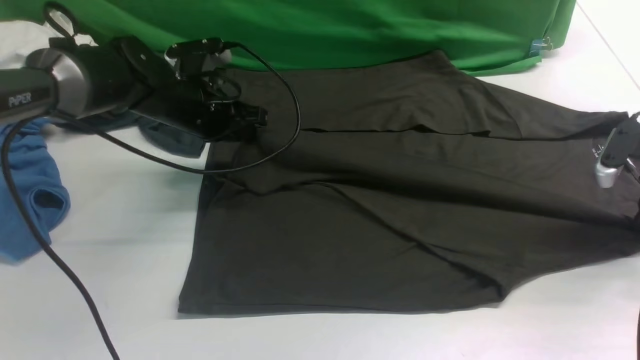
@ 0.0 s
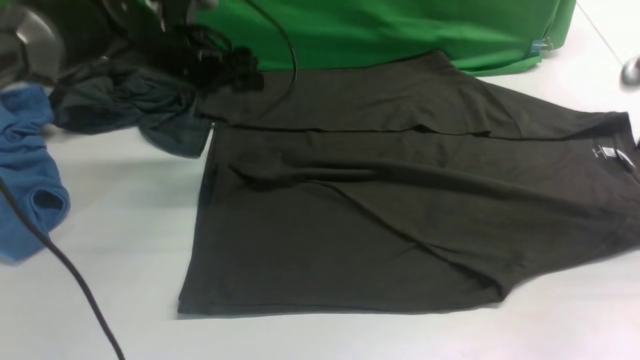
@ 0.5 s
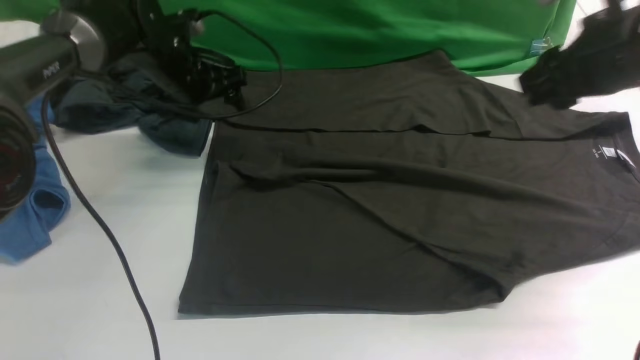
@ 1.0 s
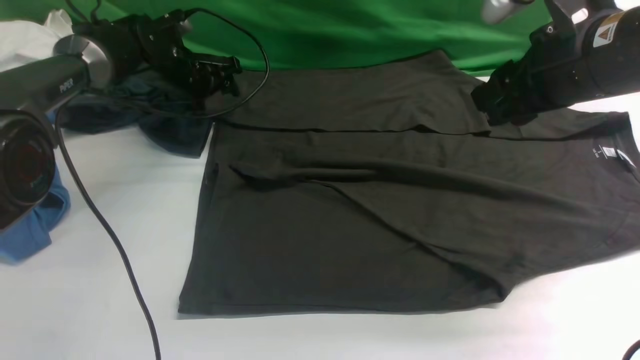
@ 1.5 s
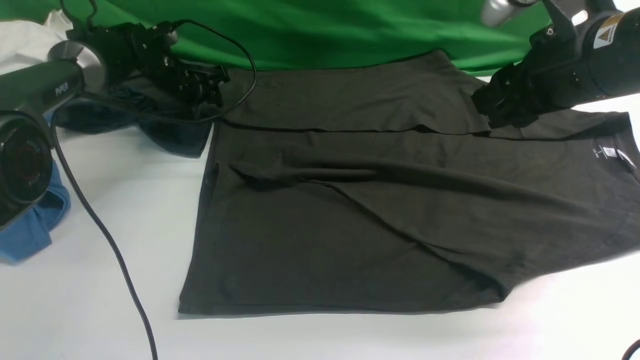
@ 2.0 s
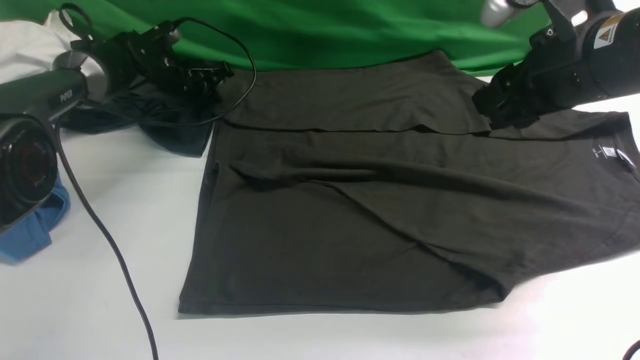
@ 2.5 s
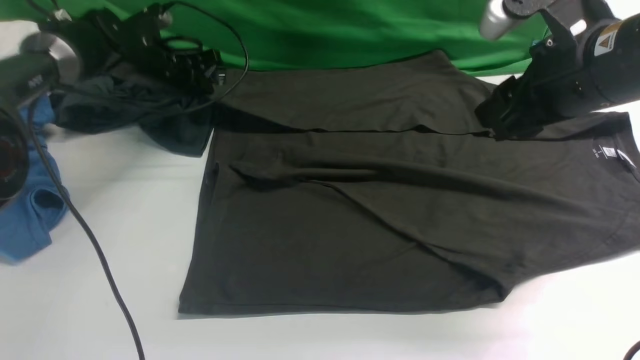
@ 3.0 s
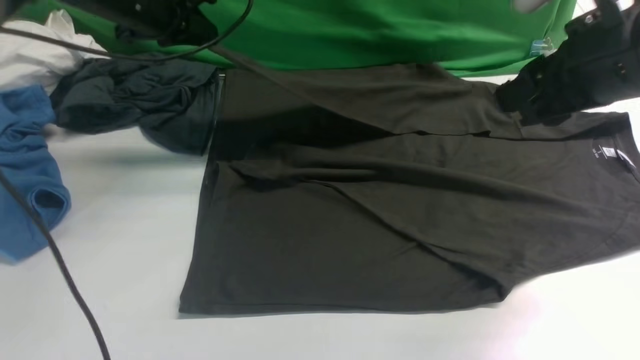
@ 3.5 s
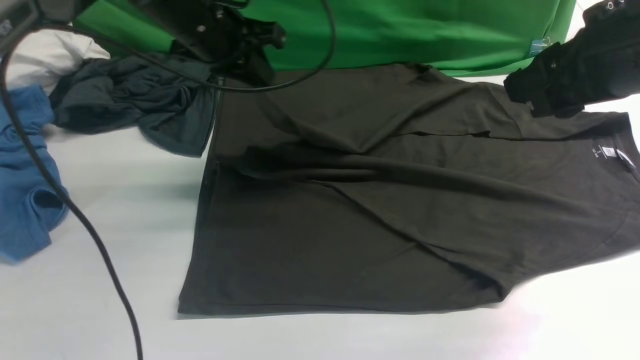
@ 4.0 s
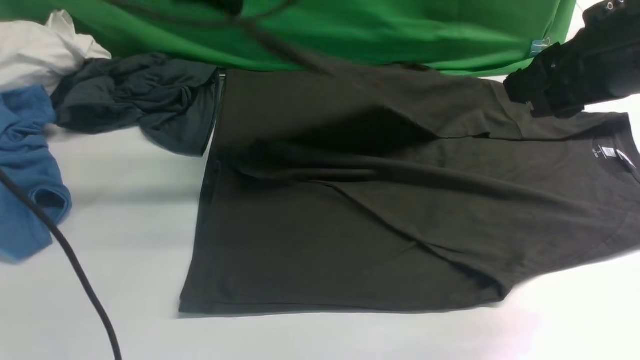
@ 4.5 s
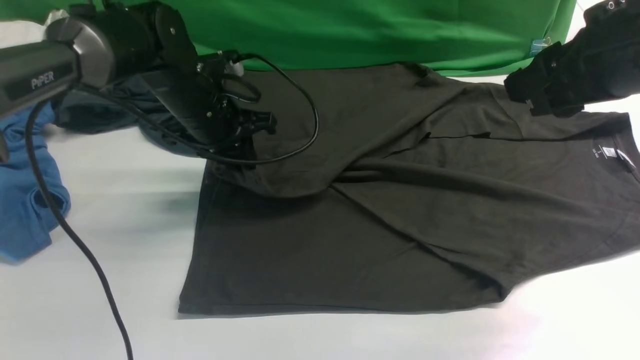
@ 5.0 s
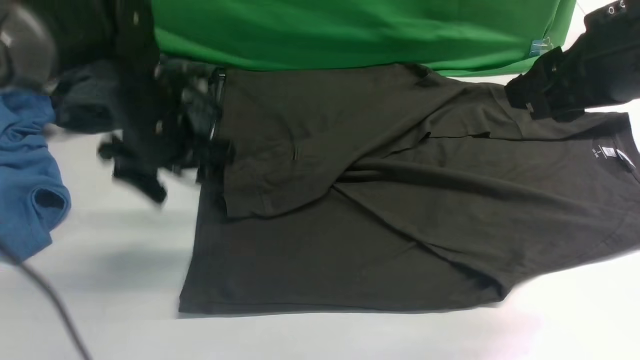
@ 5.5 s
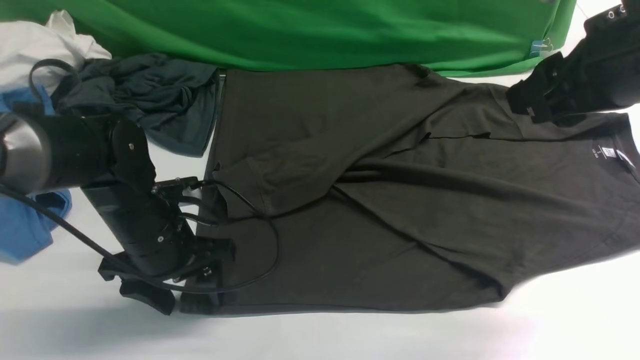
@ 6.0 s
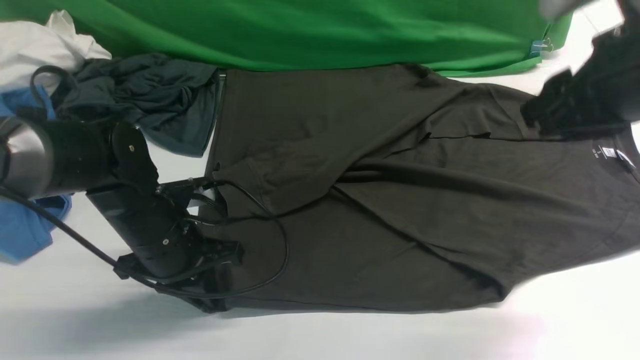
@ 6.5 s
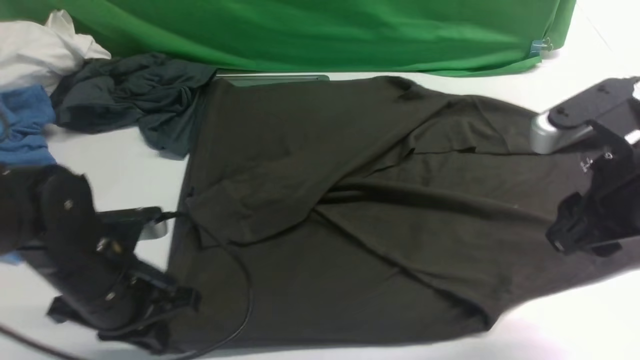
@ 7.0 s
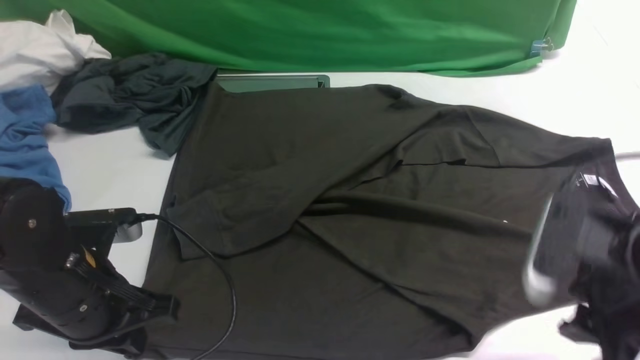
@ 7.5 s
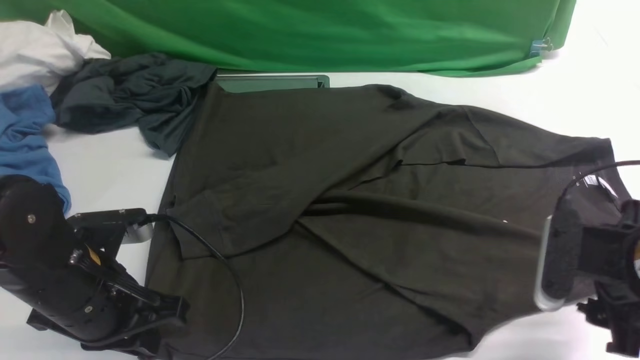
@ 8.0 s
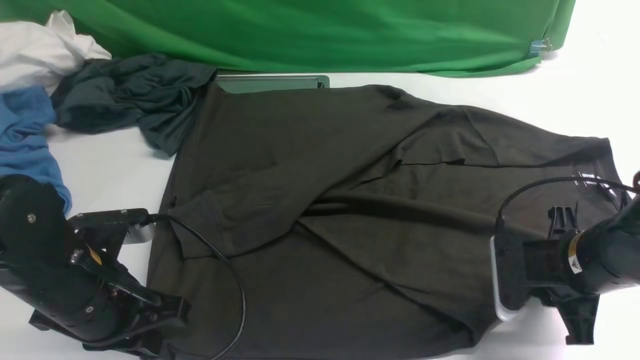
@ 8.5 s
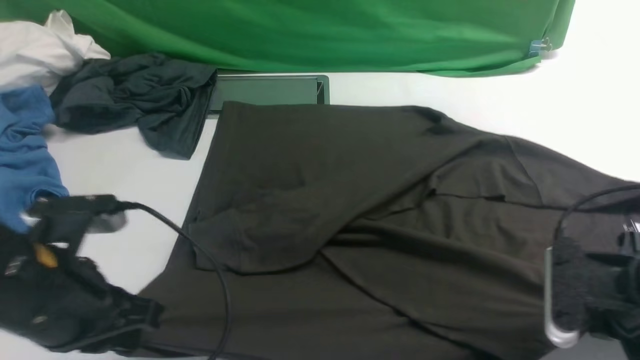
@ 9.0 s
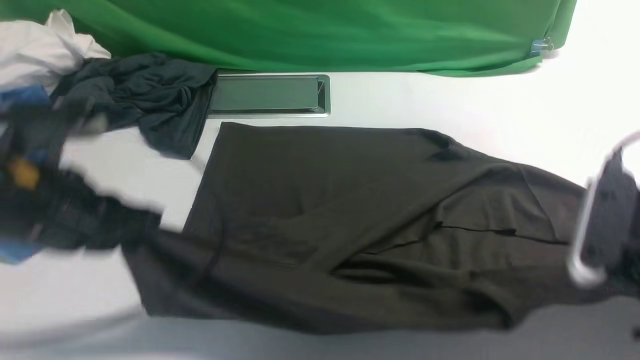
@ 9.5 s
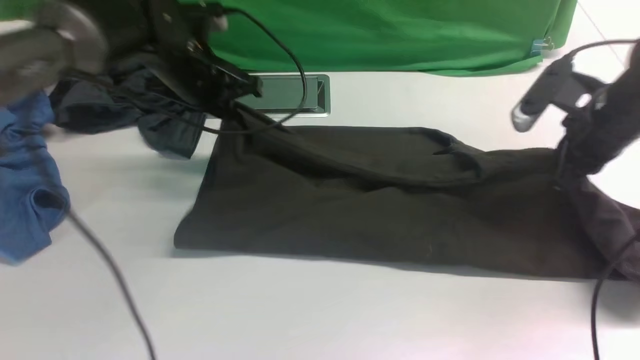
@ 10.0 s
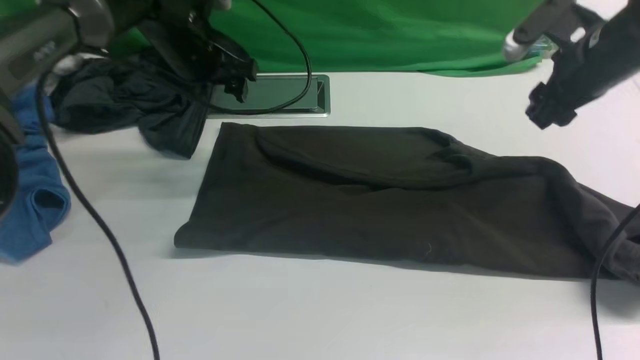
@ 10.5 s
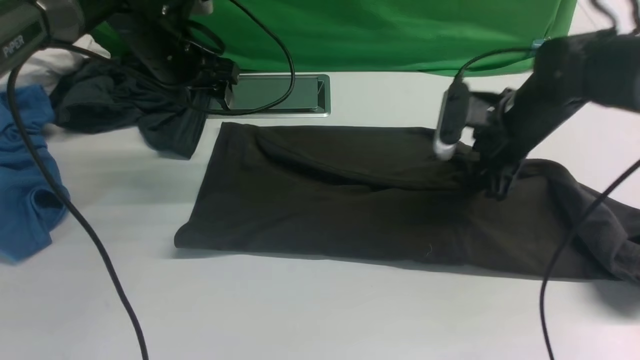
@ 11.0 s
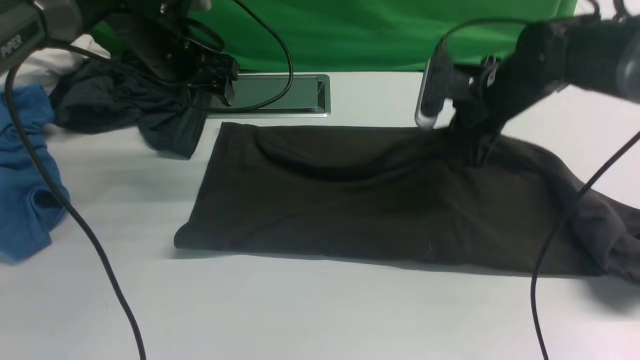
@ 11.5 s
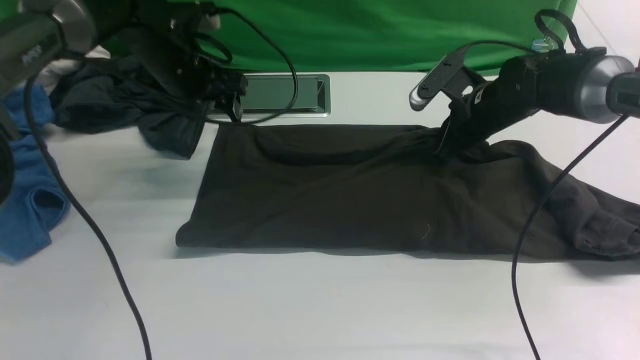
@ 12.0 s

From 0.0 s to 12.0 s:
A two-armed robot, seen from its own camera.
Step, from 0.5 s to 3.0 s: use the left arm to clamp the cuff farthest from it.
Step, from 3.5 s to 5.0 s: use the left arm to drag and drop the cuff onto the cuff closest to the left arm.
Step, from 5.5 s to 8.5 s: use both arms simultaneously to clamp the lower edge of the clothing fabric.
From 0.0 s to 2.0 s: The right gripper travels to the left and upward by some 25 cm, and opens up. Meanwhile the left gripper heads forward and to the left, covering some 10 cm, and opens its fingers.
From 2.0 s to 4.0 s: The left gripper travels upward, backward and to the right by roughly 20 cm, and closes; the right gripper shifts by some 5 cm.
From 4.0 s to 6.0 s: The left gripper heads downward and backward, covering roughly 20 cm, and opens its fingers.
From 6.0 s to 8.0 s: The left gripper moves backward, about 10 cm, and closes, while the right gripper shifts roughly 15 cm downward.
From 8.0 s to 10.0 s: The right gripper is displaced forward by approximately 15 cm, and closes; the left gripper moves forward, about 25 cm.
From 10.0 s to 12.0 s: The left gripper opens its fingers. The right gripper is displaced forward, to the left and downward by some 15 cm, and opens and closes again.

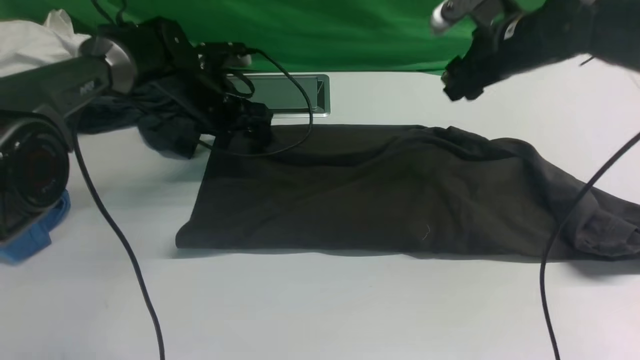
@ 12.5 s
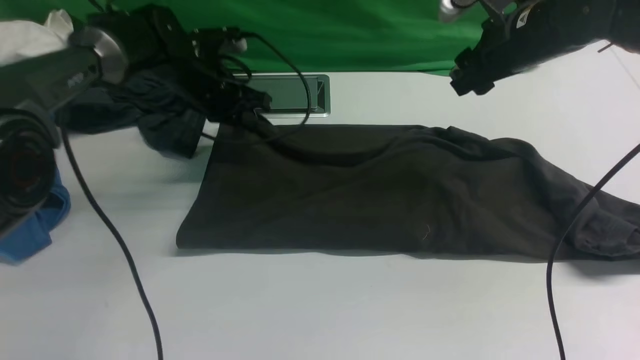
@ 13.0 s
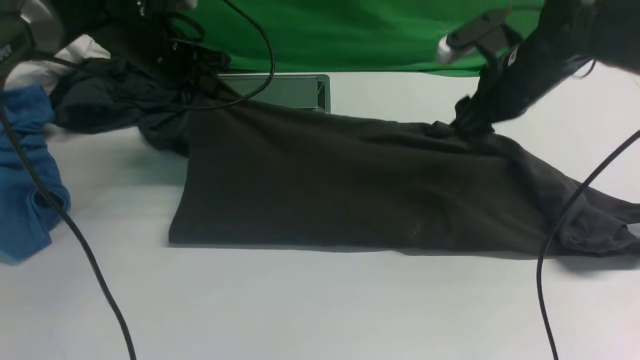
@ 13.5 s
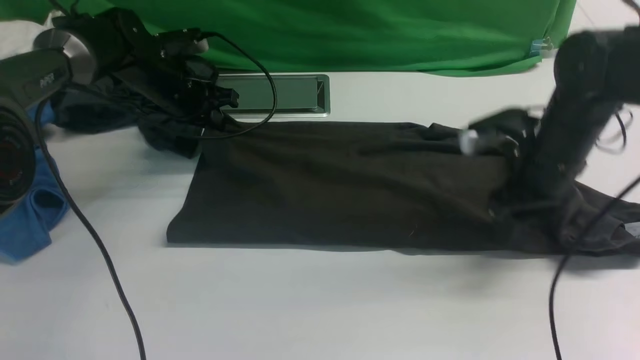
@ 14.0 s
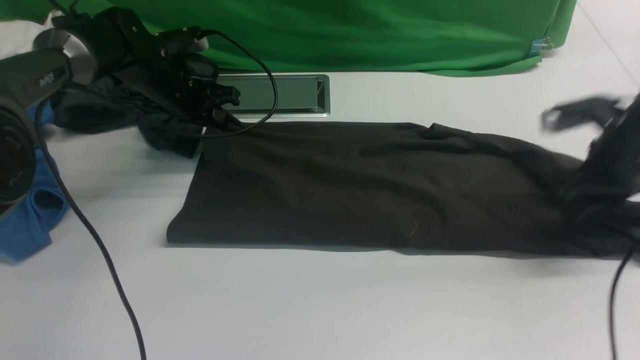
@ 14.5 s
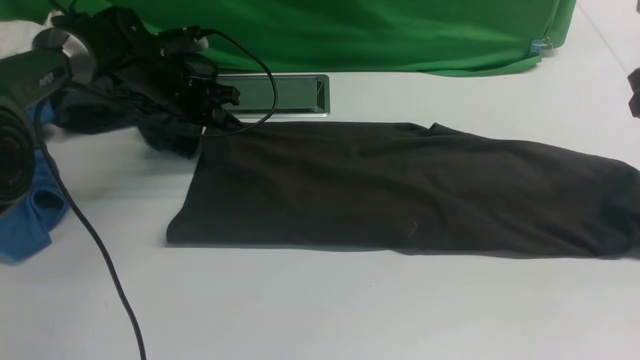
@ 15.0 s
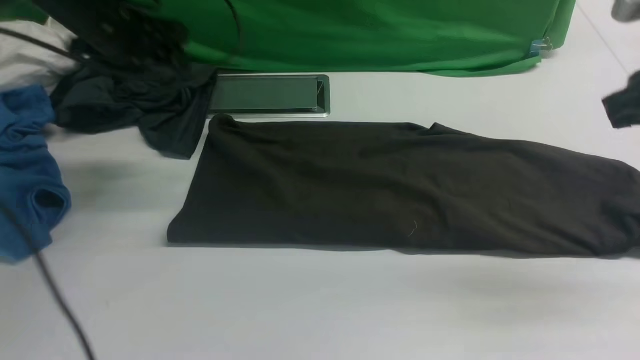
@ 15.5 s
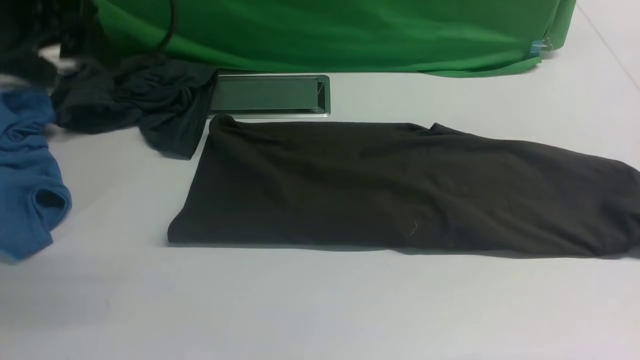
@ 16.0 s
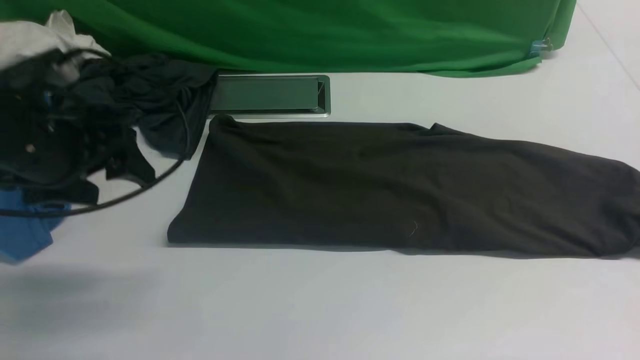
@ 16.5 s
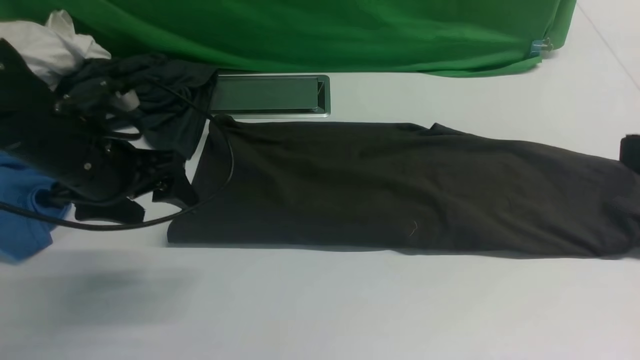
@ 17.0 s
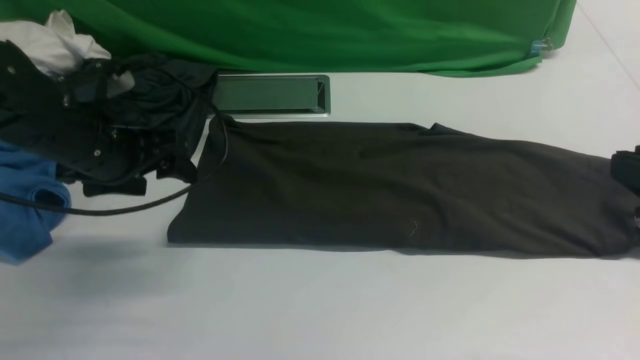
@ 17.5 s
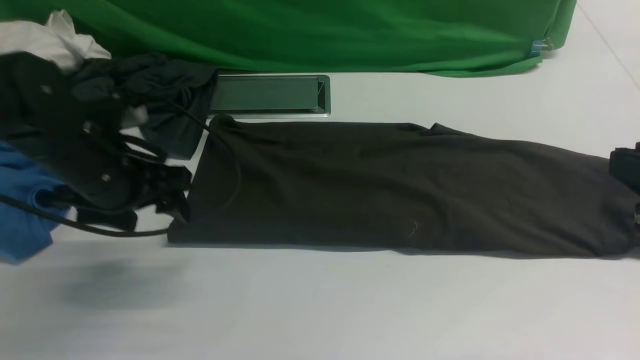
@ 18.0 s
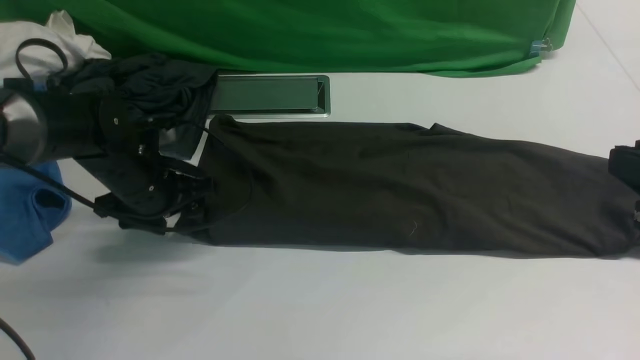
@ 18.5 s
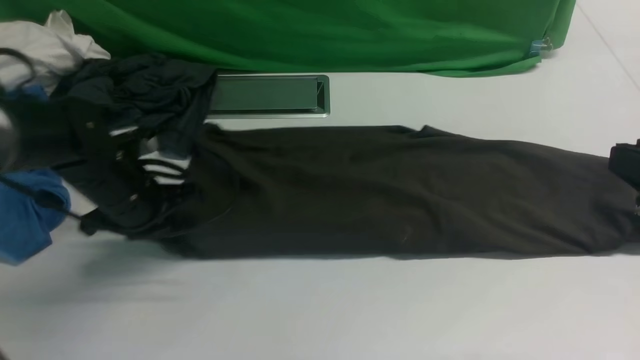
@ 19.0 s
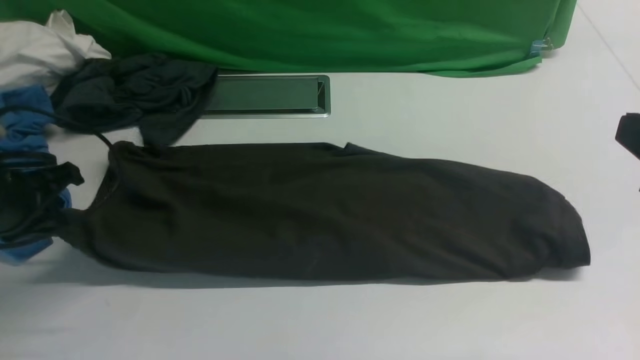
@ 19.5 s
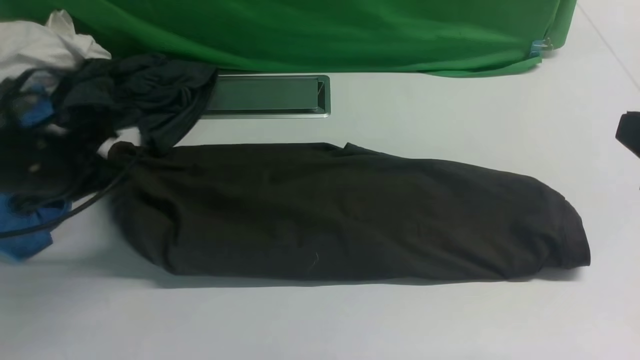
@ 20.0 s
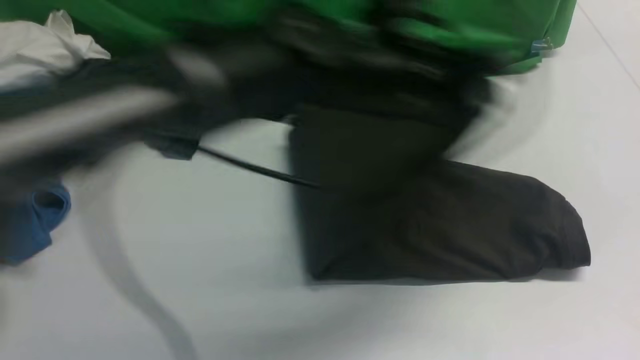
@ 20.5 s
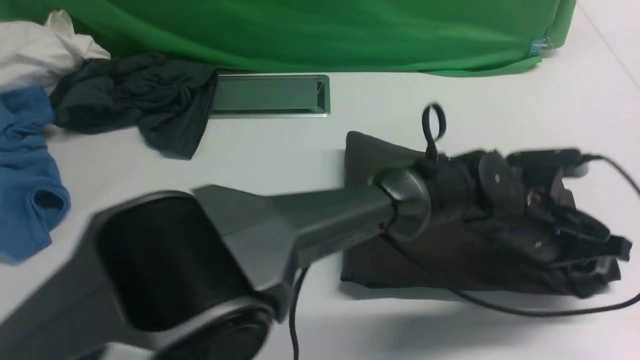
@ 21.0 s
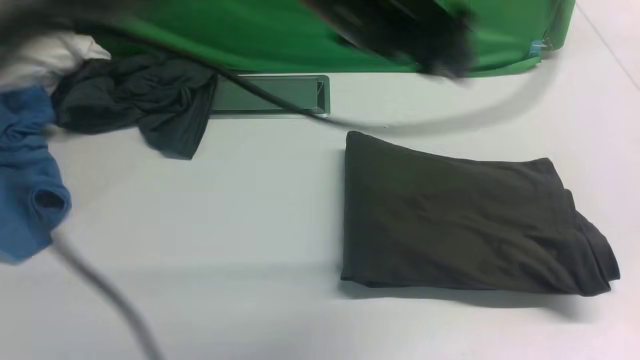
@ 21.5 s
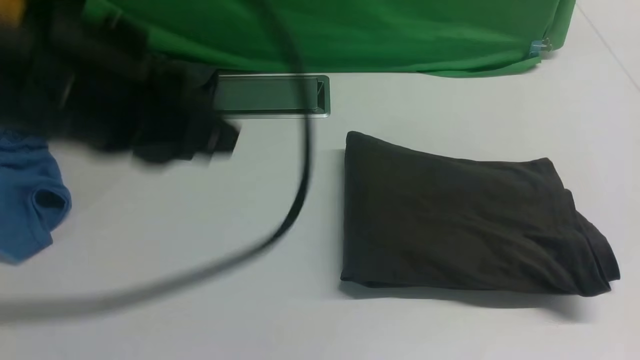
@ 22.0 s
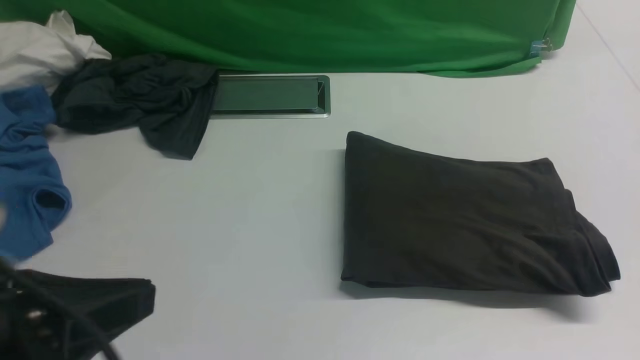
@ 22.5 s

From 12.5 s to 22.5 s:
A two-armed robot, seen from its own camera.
Step, from 12.5 s to 15.5 s: use both arms to drag the lower edge of the fabric forward and fold it over the upper edge.
Step, from 16.0 s to 19.0 s: Hold the left edge of the fabric with your left arm.
Step, from 19.5 s to 21.0 s: Drag the left edge of the fabric to the left with your left arm and fold it to the right edge.
From 12.5 s to 14.5 s: The left gripper closes up; the right gripper is displaced to the right and backward by some 15 cm.
From 14.5 s to 16.5 s: The grippers both shift backward and upward by approximately 25 cm. The left gripper opens. The right gripper closes.
From 16.5 s to 18.5 s: The left gripper moves downward and forward, some 15 cm, and closes.
From 18.5 s to 20.5 s: The left gripper heads to the right and upward, covering some 30 cm, and closes. The right gripper is displaced upward by about 5 cm.
From 20.5 s to 22.5 s: The left gripper travels backward and to the left by some 35 cm, and opens, then closes once more; the right gripper moves backward and downward, some 15 cm.
